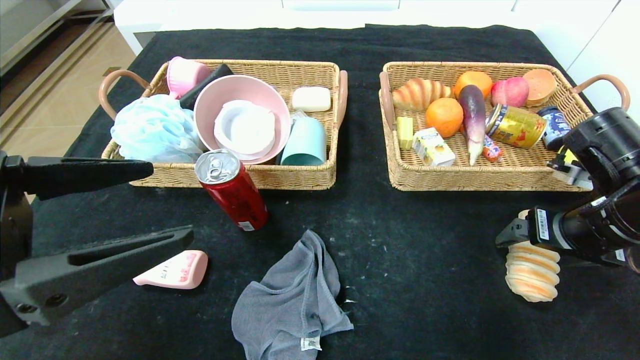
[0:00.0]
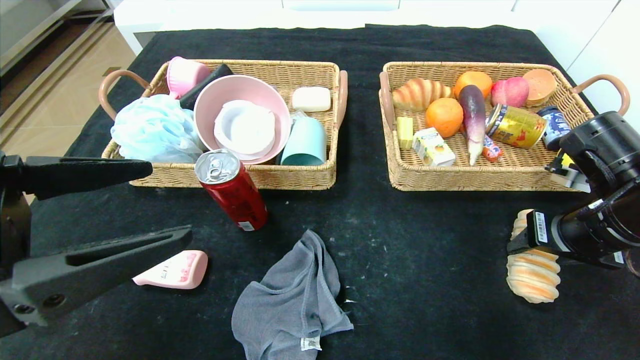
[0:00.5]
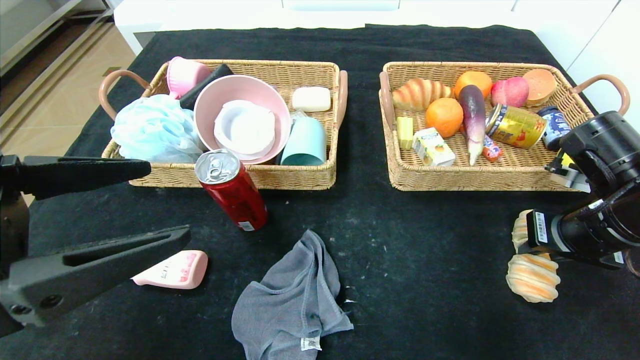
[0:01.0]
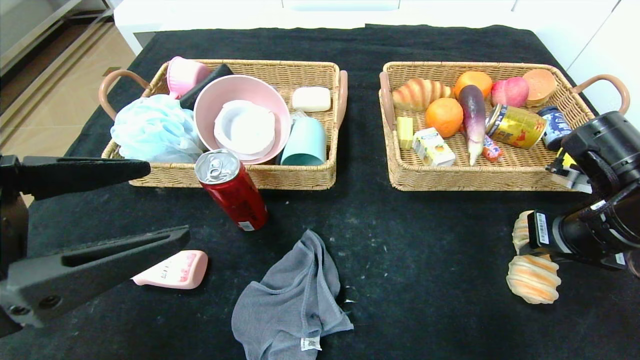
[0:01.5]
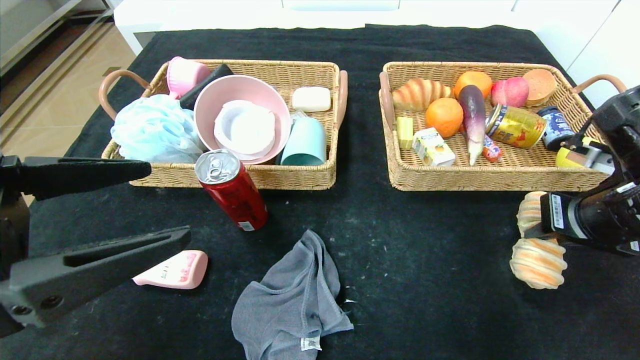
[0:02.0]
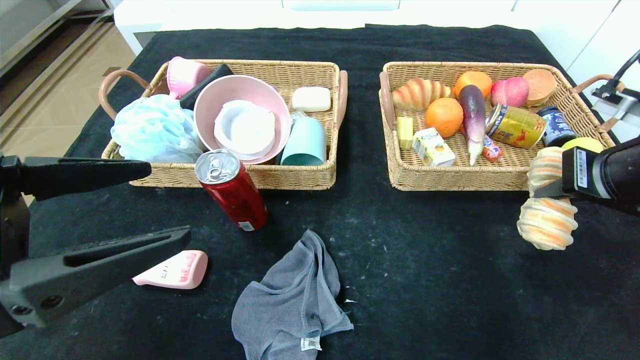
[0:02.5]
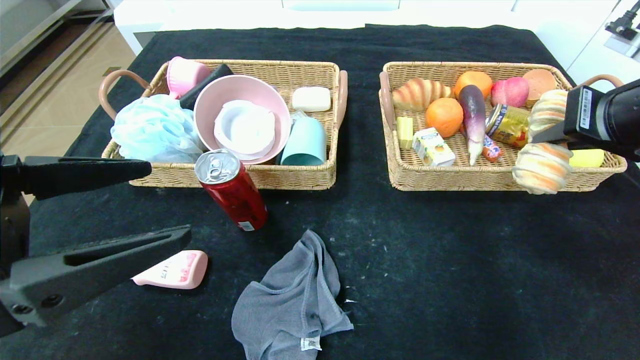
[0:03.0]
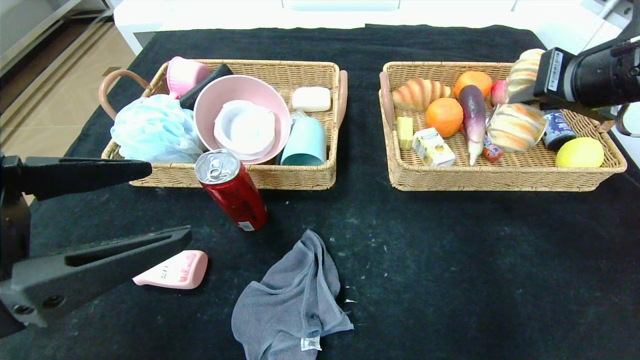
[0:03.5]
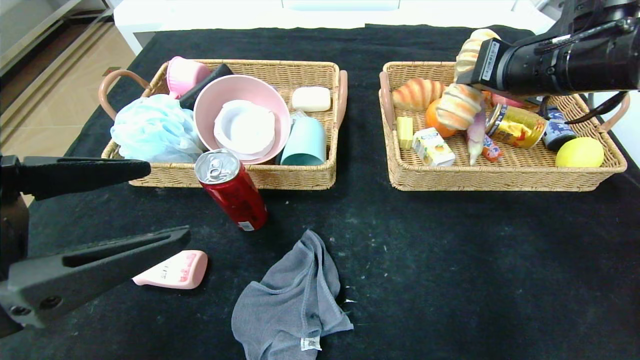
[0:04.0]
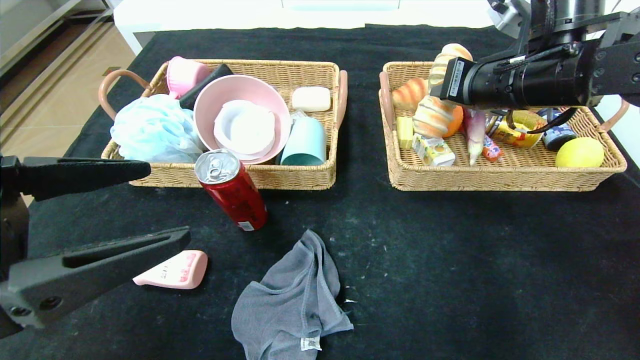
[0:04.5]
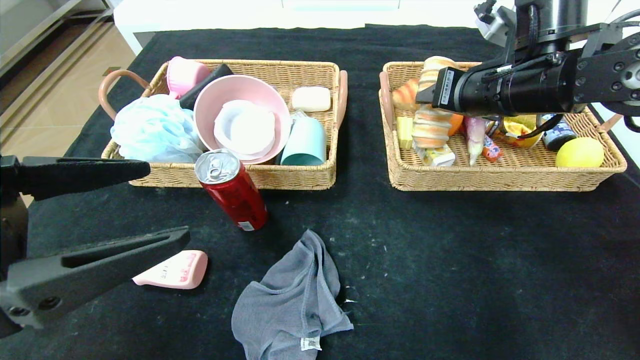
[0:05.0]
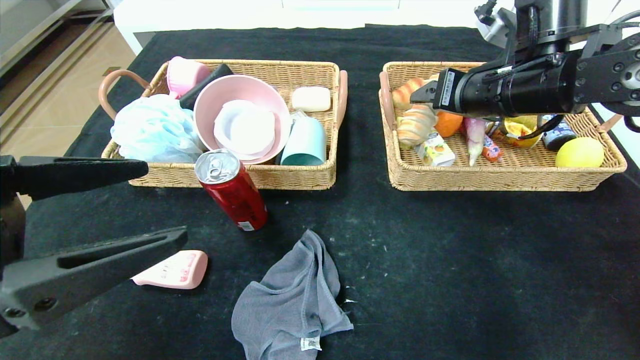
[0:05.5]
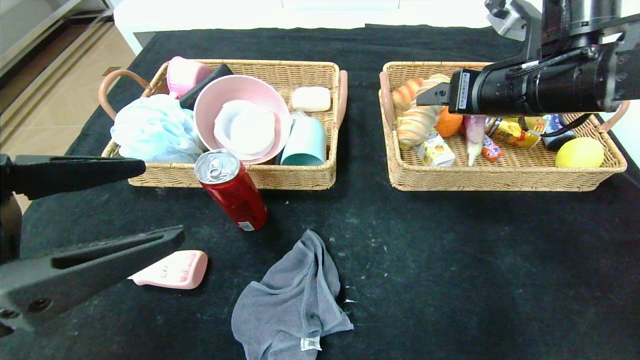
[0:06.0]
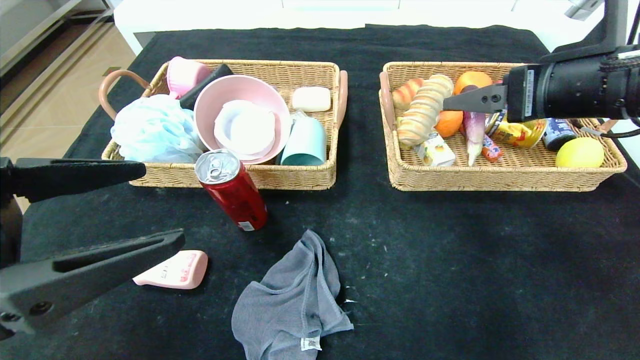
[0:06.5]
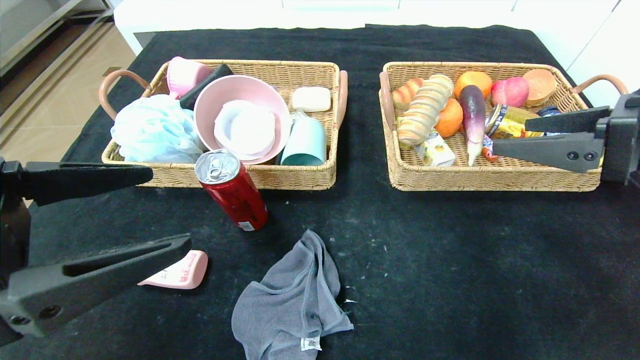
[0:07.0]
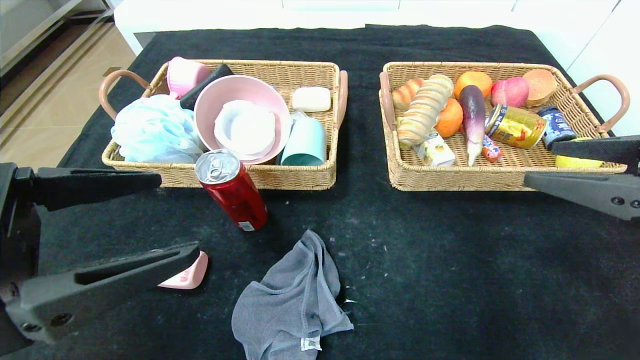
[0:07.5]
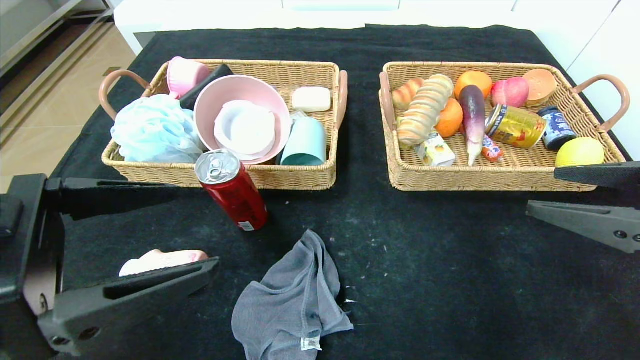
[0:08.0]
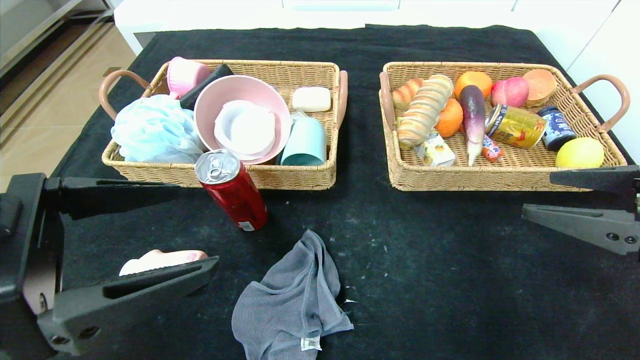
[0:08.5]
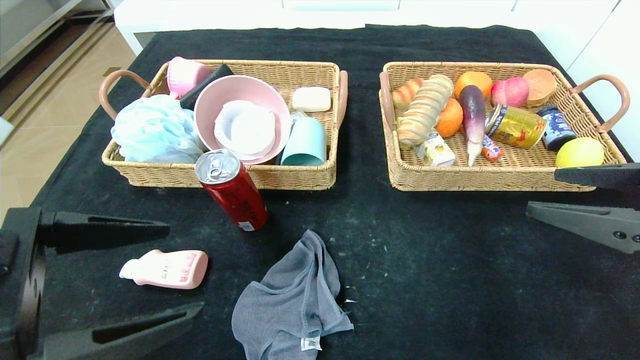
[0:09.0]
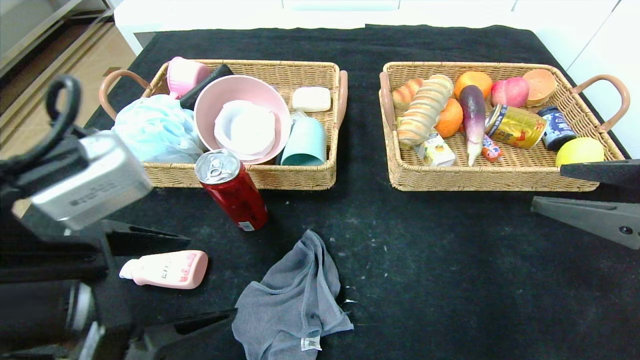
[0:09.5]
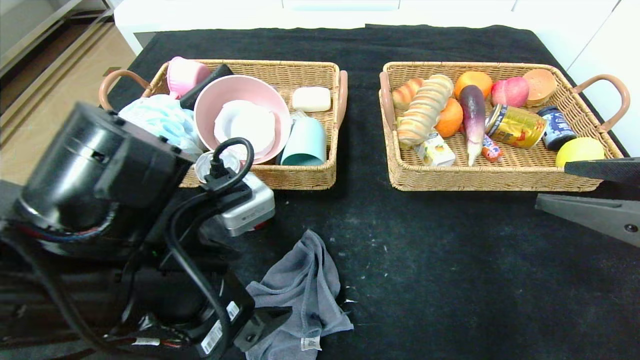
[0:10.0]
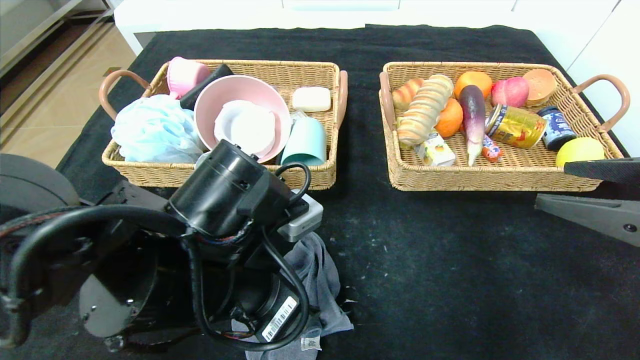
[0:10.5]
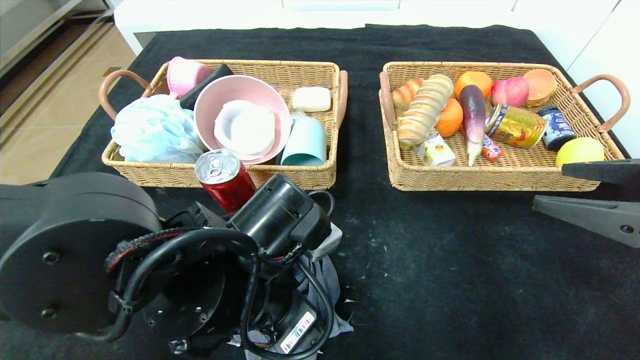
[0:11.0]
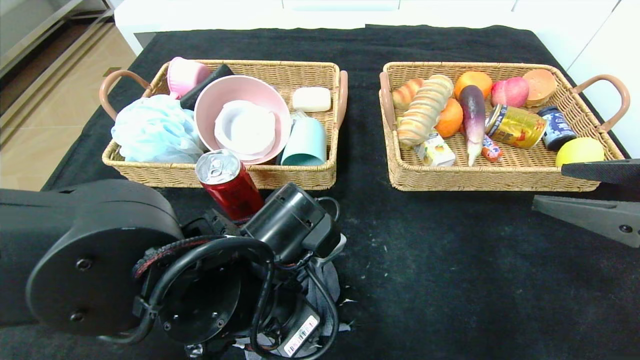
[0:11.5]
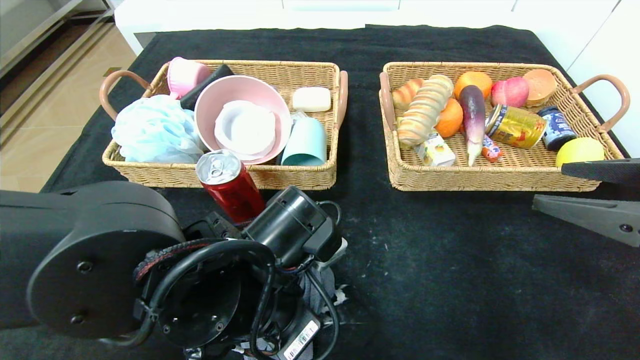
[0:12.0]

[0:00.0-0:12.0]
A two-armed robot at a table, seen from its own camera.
Step, 0:00.0 to 0:05.5: Grasp the long bread and put it in the right basket.
0:00.0 to 0:02.0: The right gripper closes up.
0:02.0 to 0:04.0: The right gripper goes roughly 15 cm upward, forward and to the left.
0:04.0 to 0:06.0: The right gripper opens.
0:06.0 to 0:08.0: The right gripper goes about 20 cm backward and to the right.
0:08.0 to 0:10.0: The left gripper is displaced to the right by approximately 10 cm.
0:10.0 to 0:12.0: The left gripper moves to the right and downward, approximately 10 cm, and closes.

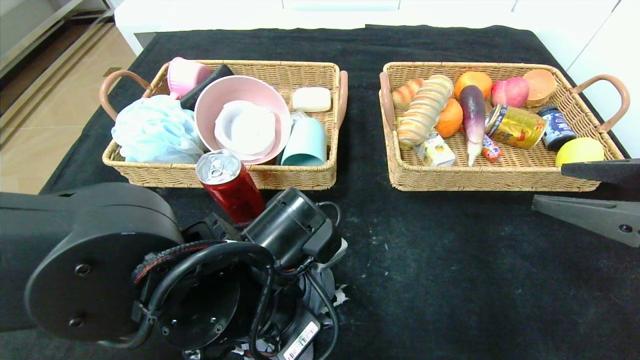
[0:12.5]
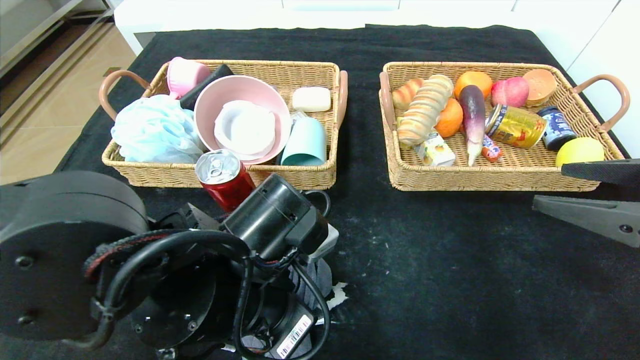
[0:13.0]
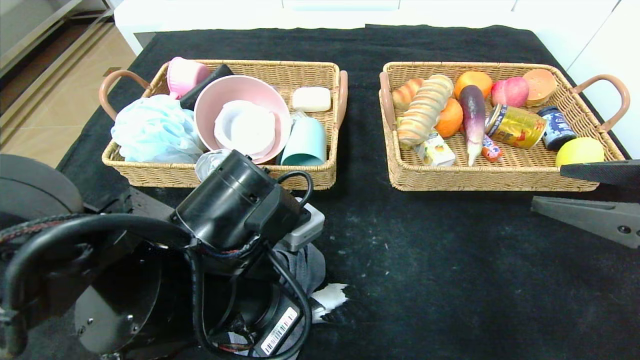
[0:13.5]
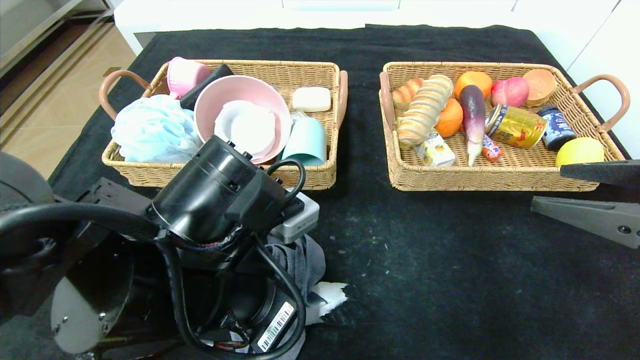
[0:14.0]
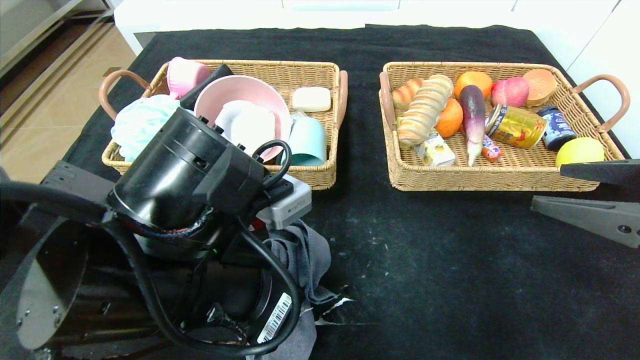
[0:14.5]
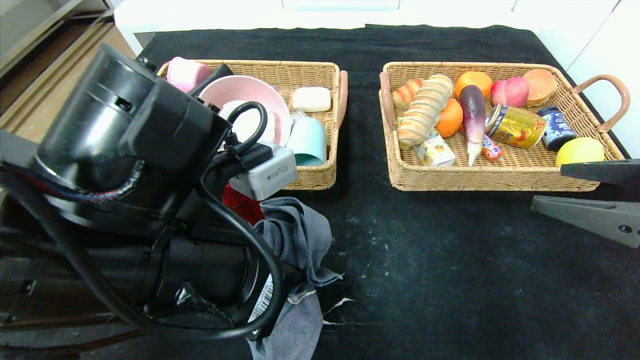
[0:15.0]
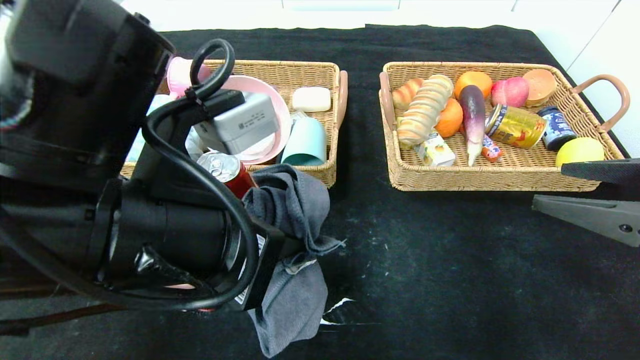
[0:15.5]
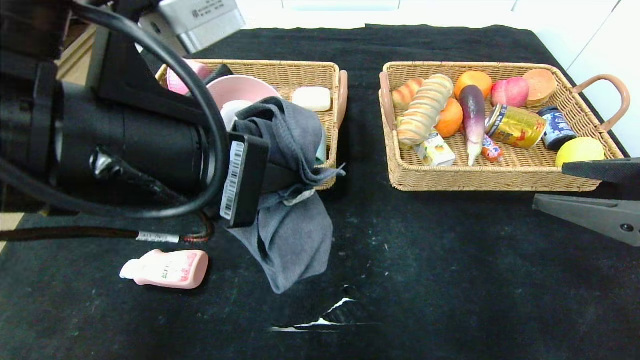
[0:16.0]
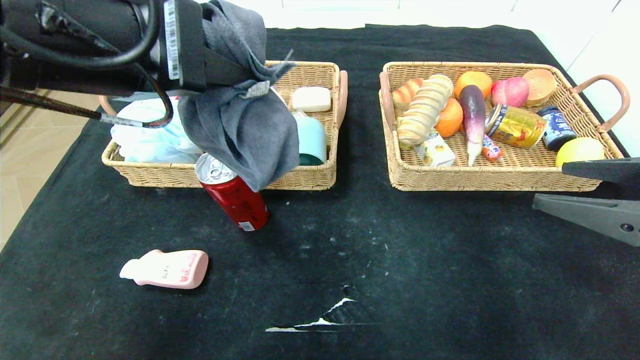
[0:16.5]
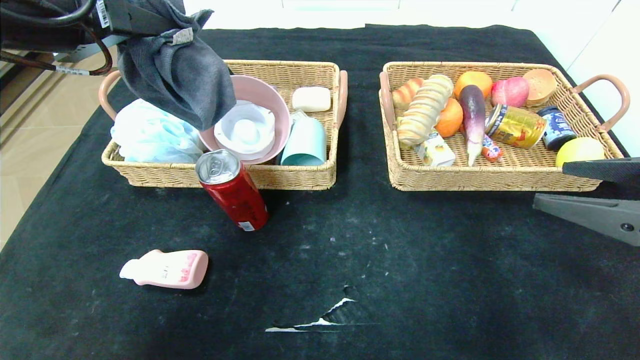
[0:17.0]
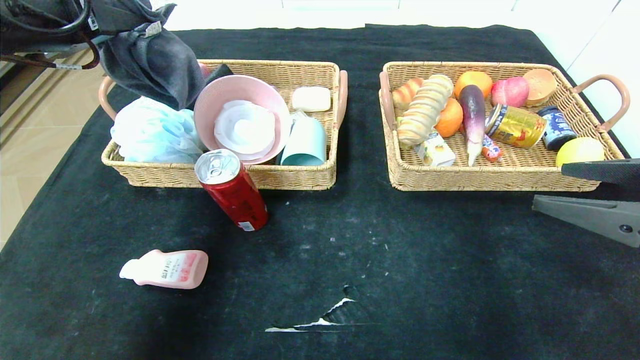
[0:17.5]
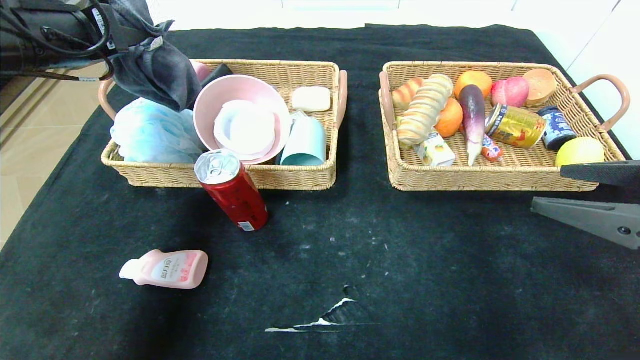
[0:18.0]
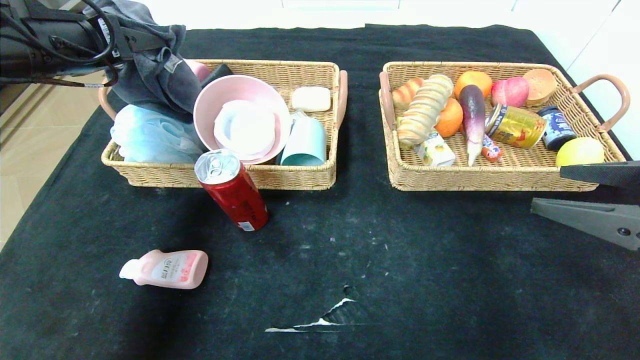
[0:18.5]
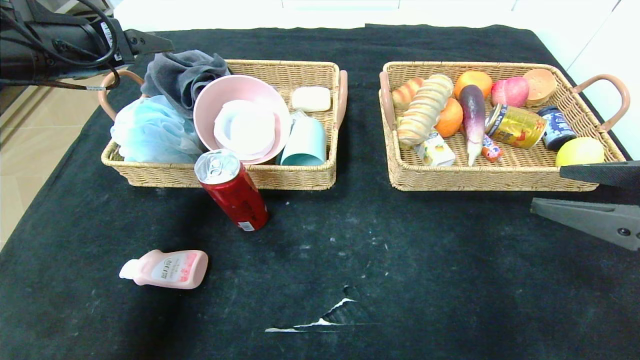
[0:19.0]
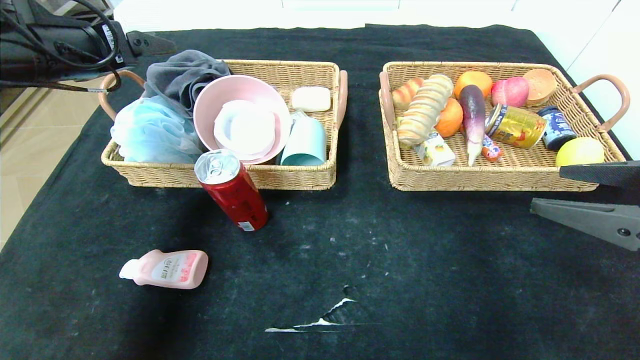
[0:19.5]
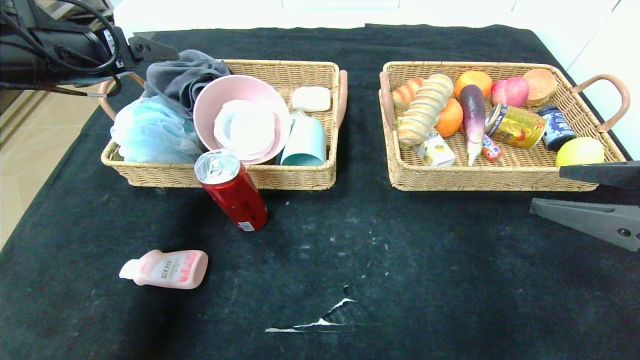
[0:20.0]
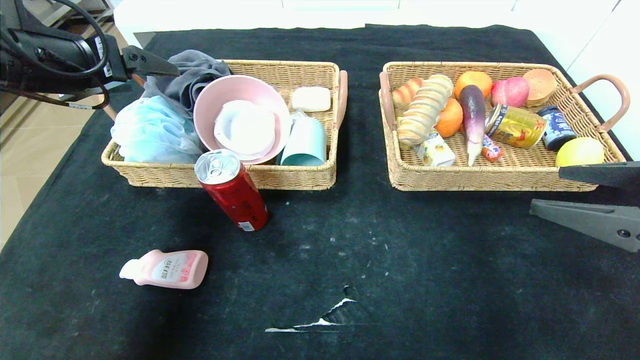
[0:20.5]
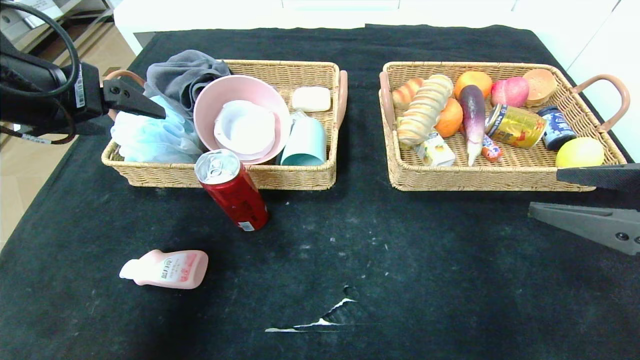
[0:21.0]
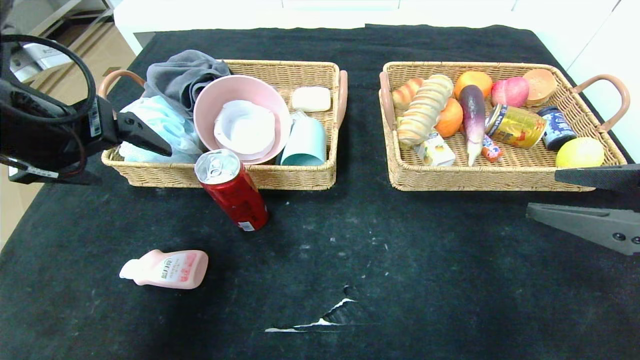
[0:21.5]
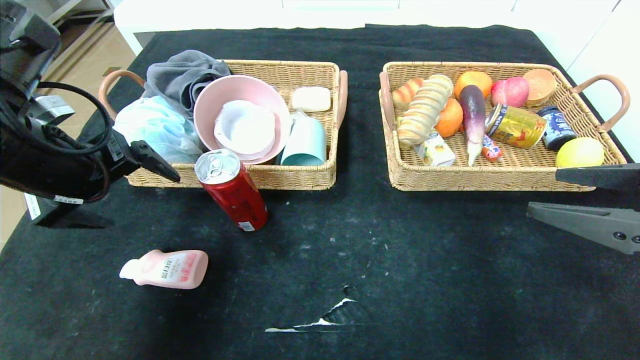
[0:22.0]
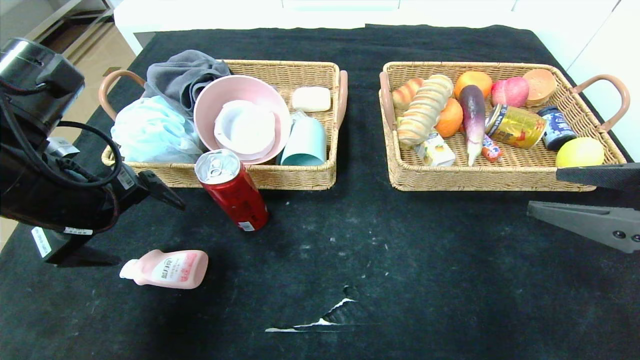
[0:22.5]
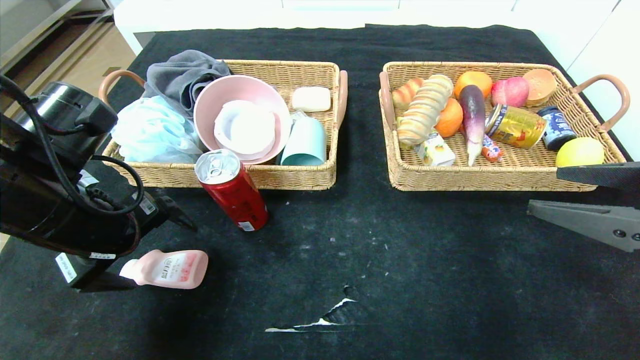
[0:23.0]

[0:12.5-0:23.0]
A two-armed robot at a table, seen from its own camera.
Step, 0:12.5 to 0:20.0: Grasp the gray towel and put it in the left basket.
0:12.5 to 0:14.5: The left gripper moves upward, roughly 5 cm.
0:14.5 to 0:16.5: The left gripper shifts some 15 cm upward and to the left.
0:16.5 to 0:19.0: The left gripper travels to the left and forward by approximately 20 cm, and opens up.
0:19.0 to 0:21.0: The left gripper heads backward, covering some 10 cm.
0:21.0 to 0:23.0: The left gripper moves downward, roughly 10 cm.
